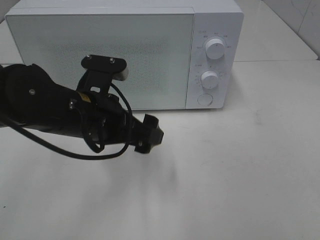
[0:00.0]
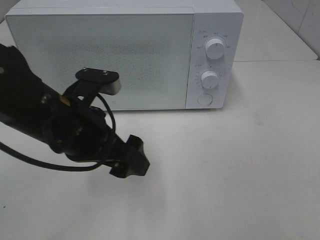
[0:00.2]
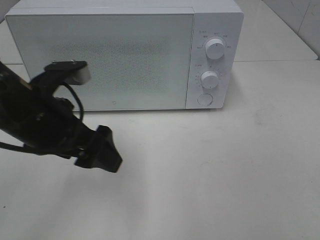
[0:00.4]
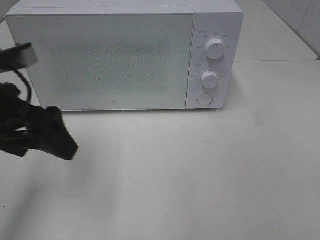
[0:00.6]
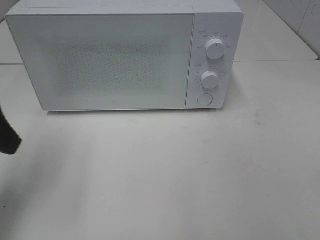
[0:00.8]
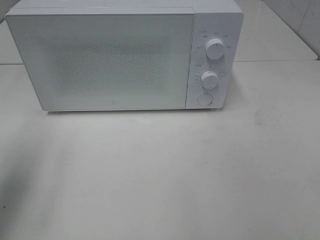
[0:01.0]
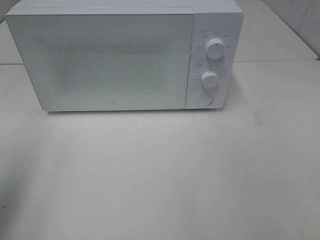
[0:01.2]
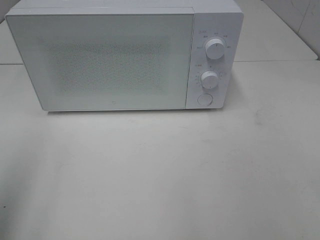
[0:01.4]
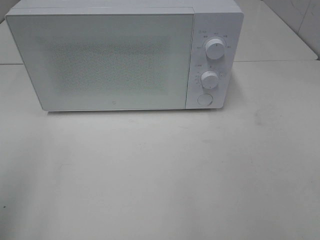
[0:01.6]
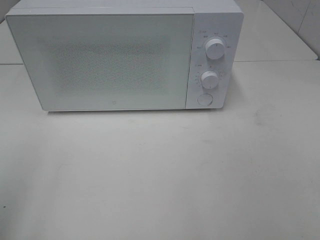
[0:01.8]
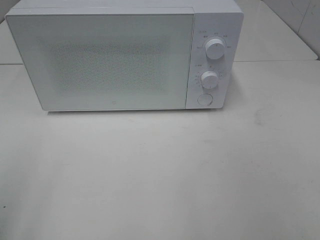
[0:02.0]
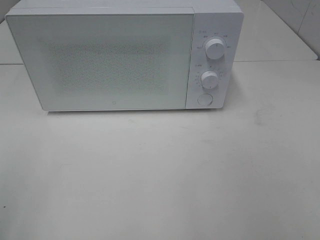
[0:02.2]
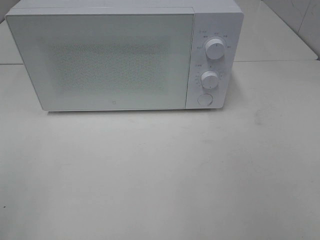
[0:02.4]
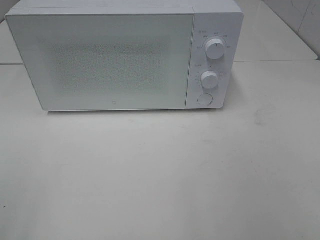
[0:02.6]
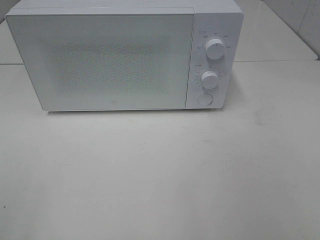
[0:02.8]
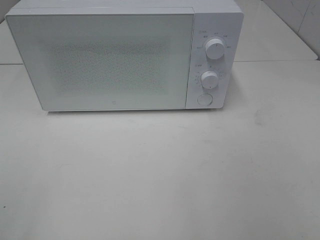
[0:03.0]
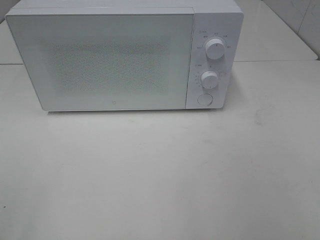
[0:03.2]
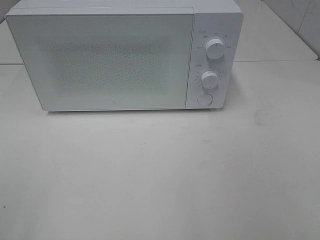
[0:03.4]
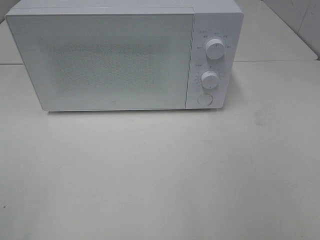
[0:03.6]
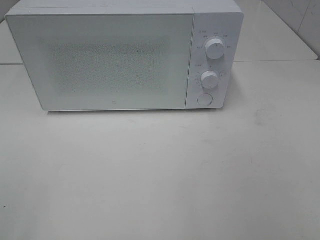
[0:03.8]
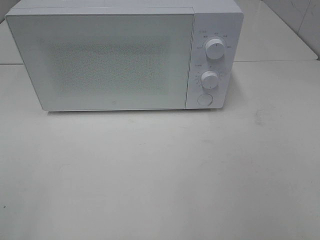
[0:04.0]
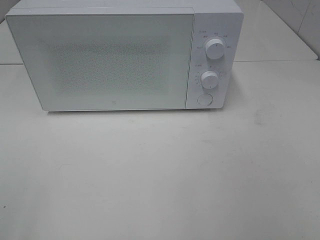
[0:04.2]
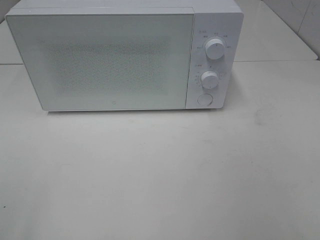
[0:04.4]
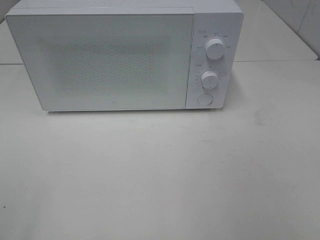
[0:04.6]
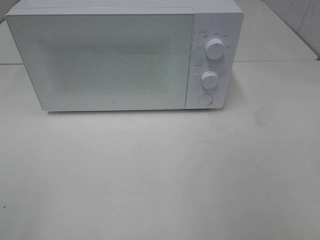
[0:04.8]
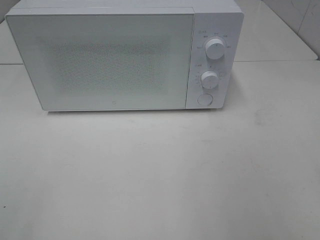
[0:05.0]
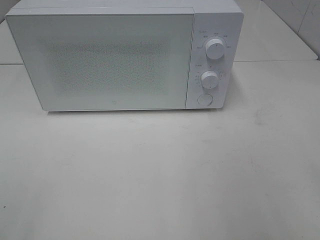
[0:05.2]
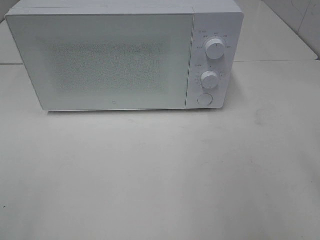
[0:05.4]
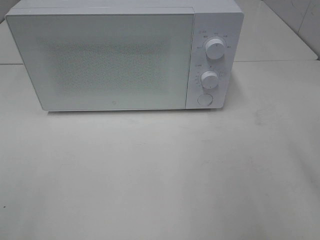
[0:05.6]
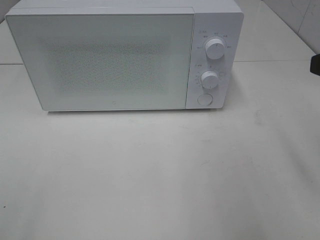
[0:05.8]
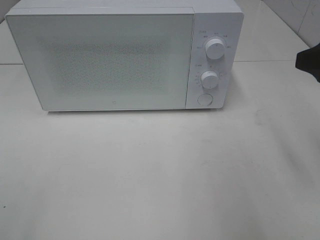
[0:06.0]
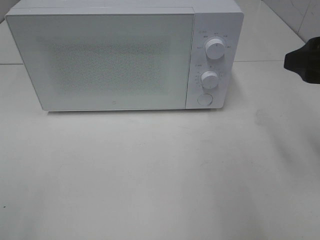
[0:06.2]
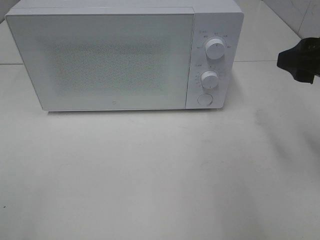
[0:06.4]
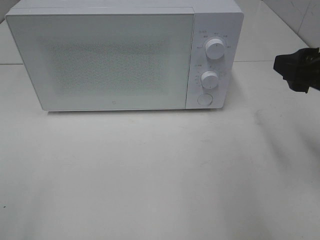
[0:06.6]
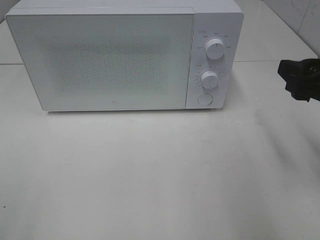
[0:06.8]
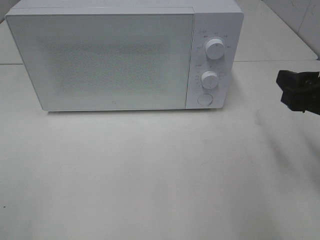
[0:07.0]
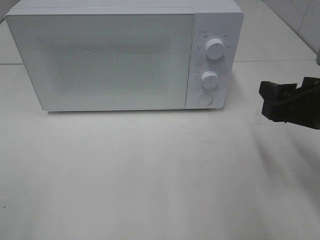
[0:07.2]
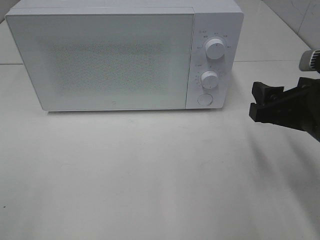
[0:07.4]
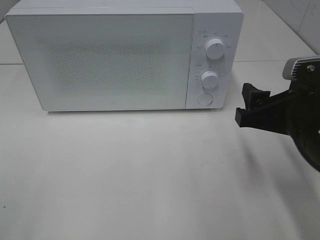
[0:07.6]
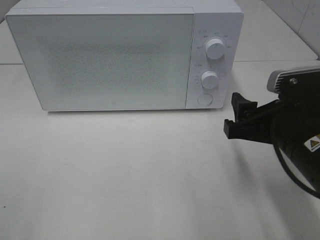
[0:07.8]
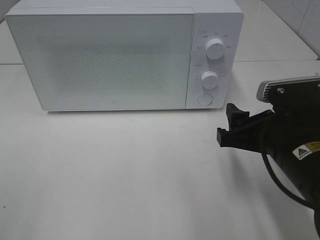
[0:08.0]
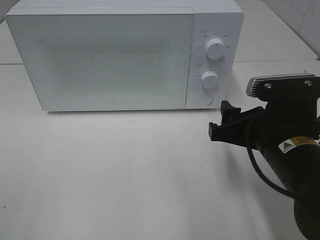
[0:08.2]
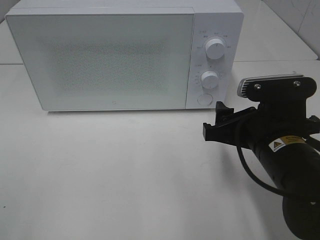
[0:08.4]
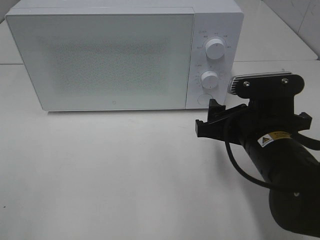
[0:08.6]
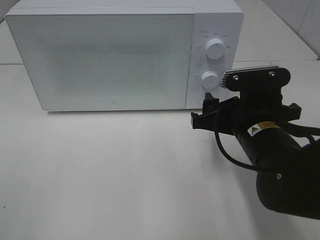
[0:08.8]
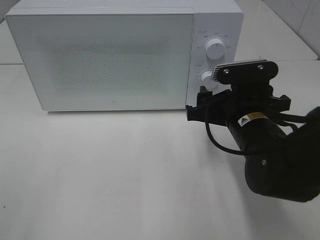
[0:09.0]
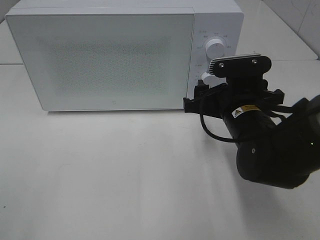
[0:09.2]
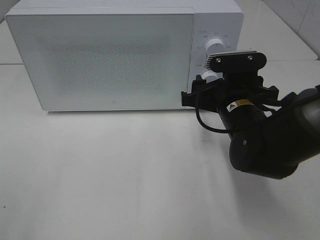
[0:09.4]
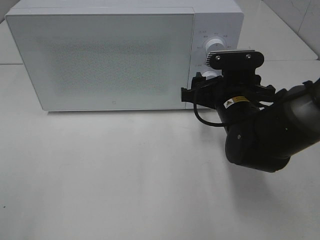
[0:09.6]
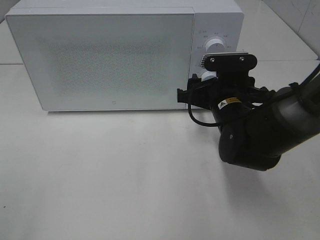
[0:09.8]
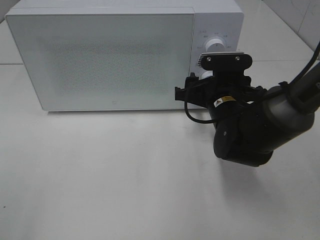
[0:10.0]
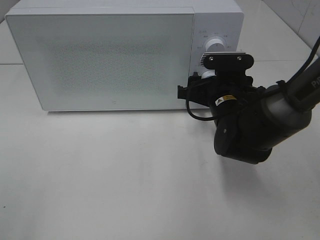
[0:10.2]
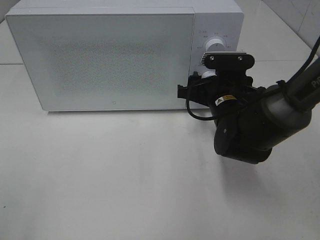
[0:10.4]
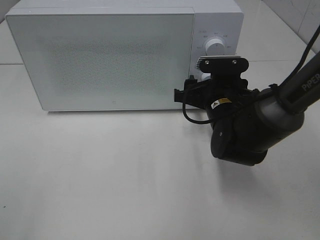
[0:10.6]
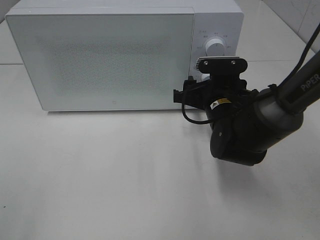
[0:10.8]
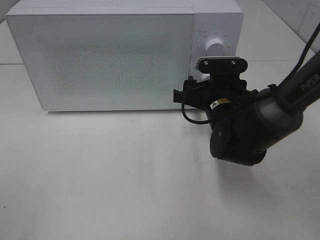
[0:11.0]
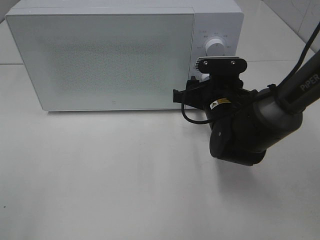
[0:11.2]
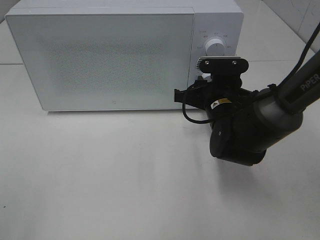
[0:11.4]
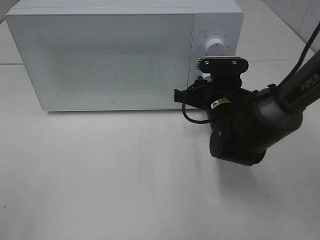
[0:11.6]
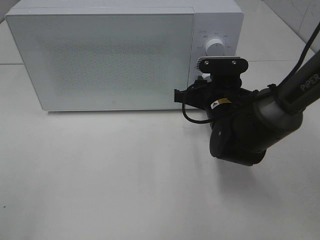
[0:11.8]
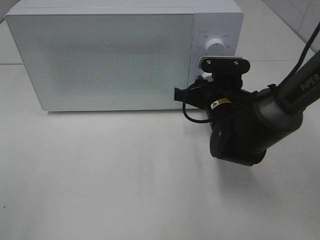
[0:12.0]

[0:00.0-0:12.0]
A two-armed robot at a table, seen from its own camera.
Task of the whole recording: Heat the burger.
0:00.0 to 0:01.6: The left gripper shifts about 30 cm to the left, upward and backward.
0:04.4 to 0:06.0: The right gripper goes about 20 cm forward.
0:06.0 to 0:07.6: The right gripper shifts some 10 cm downward and to the left.
0:07.6 to 0:09.0: The right gripper heads to the left and forward, covering approximately 10 cm.
0:09.0 to 0:10.4: The right gripper heads forward, covering about 5 cm.
0:10.4 to 0:12.0: The right gripper closes its fingers.

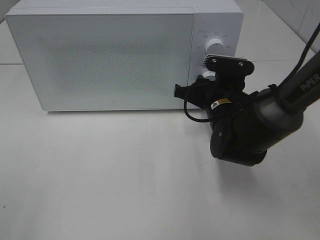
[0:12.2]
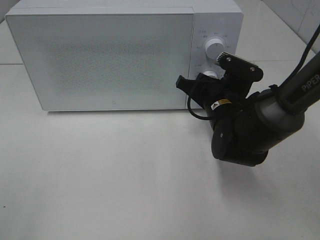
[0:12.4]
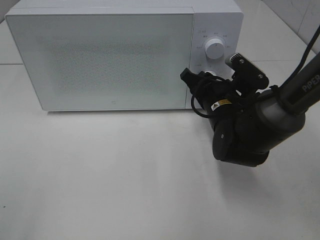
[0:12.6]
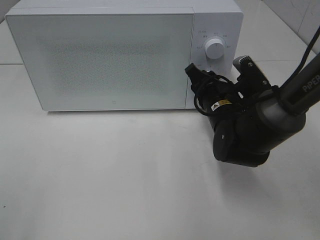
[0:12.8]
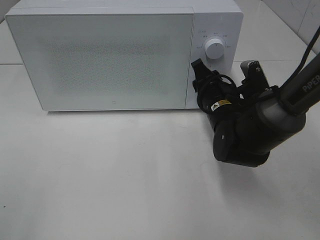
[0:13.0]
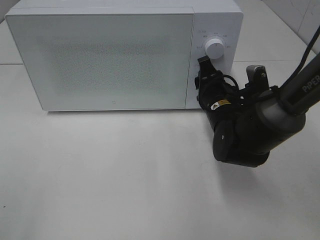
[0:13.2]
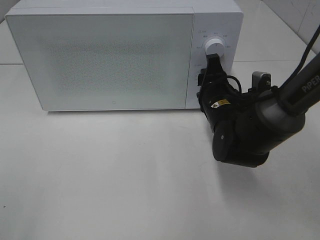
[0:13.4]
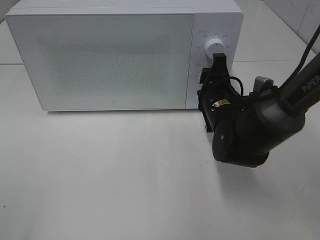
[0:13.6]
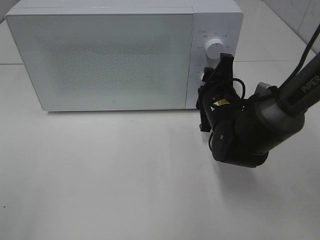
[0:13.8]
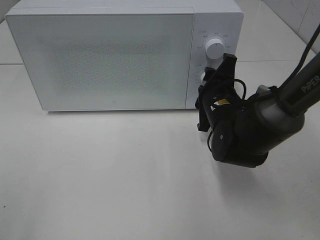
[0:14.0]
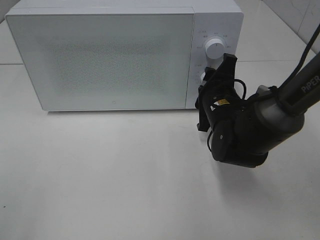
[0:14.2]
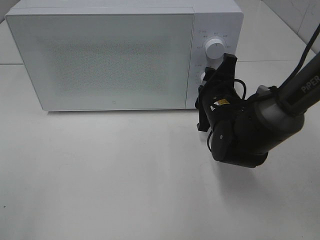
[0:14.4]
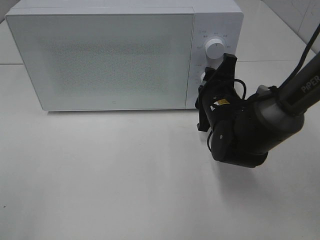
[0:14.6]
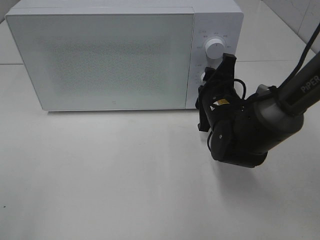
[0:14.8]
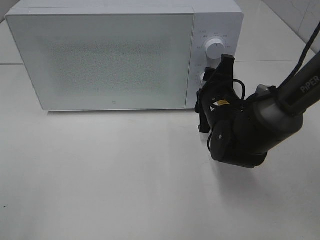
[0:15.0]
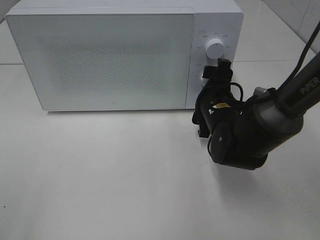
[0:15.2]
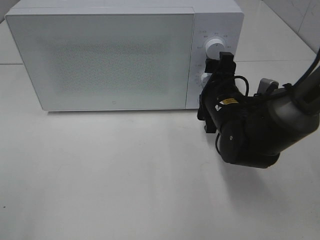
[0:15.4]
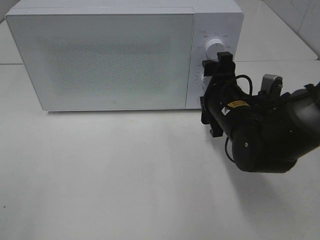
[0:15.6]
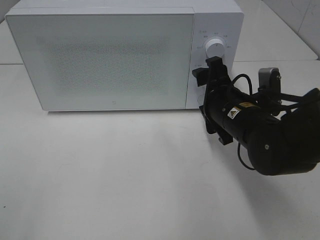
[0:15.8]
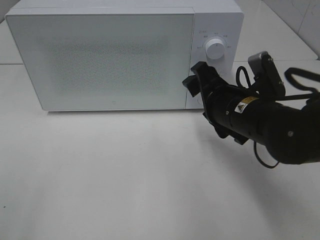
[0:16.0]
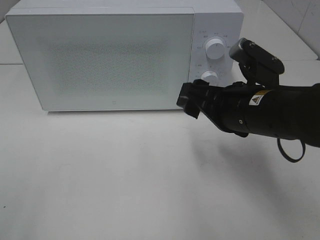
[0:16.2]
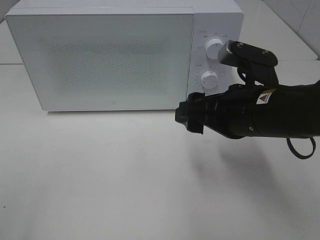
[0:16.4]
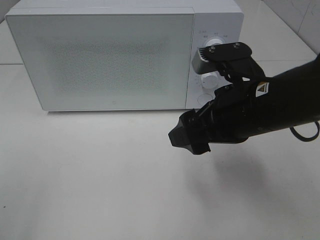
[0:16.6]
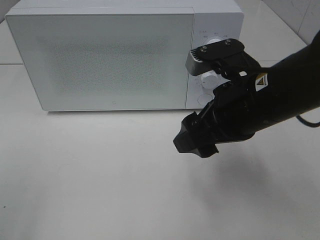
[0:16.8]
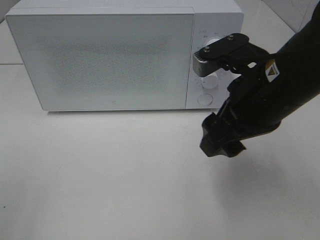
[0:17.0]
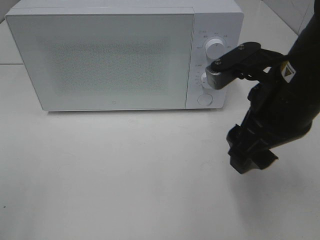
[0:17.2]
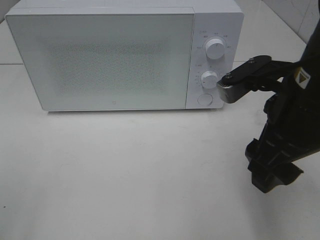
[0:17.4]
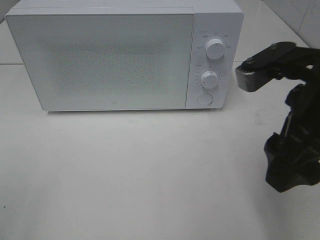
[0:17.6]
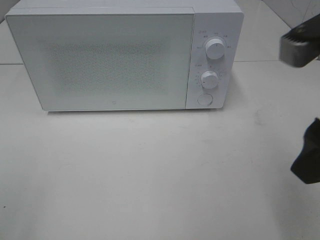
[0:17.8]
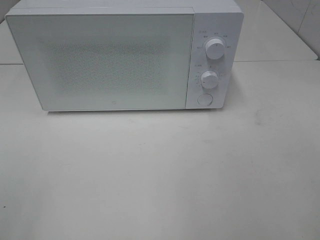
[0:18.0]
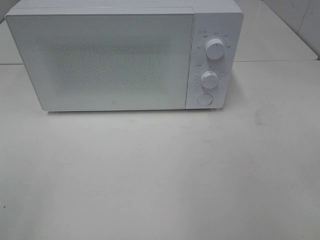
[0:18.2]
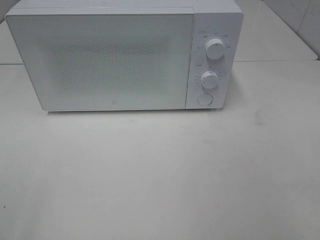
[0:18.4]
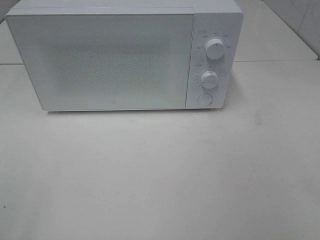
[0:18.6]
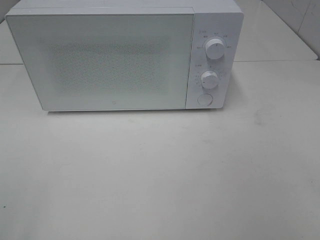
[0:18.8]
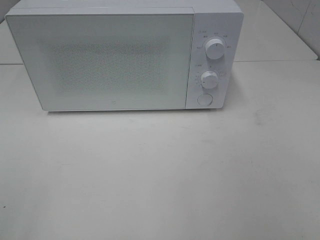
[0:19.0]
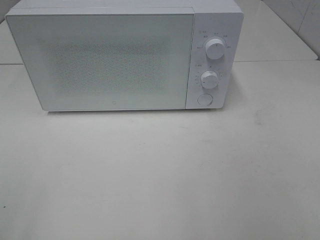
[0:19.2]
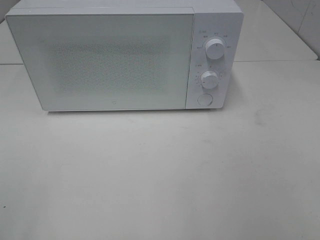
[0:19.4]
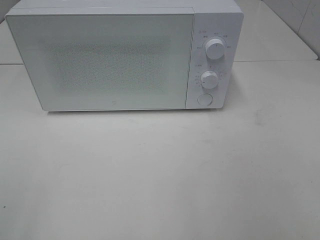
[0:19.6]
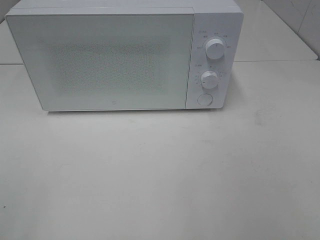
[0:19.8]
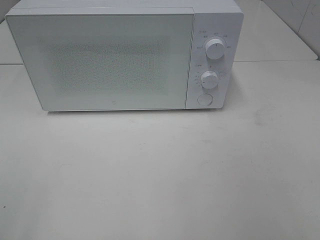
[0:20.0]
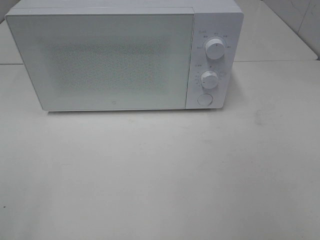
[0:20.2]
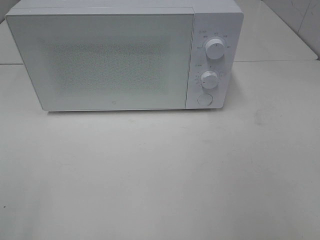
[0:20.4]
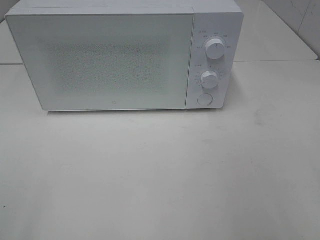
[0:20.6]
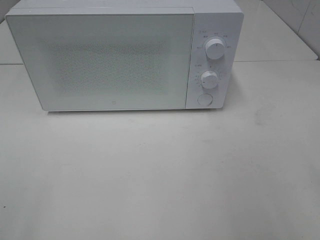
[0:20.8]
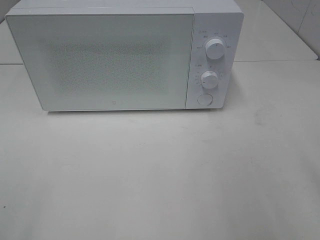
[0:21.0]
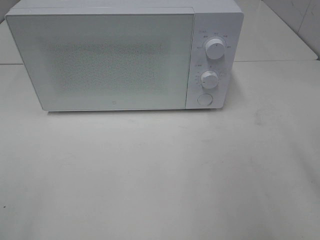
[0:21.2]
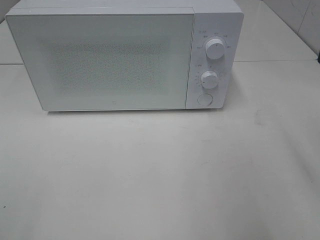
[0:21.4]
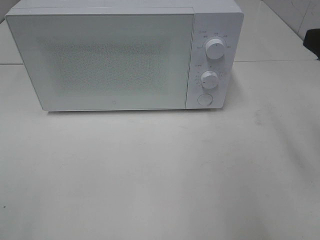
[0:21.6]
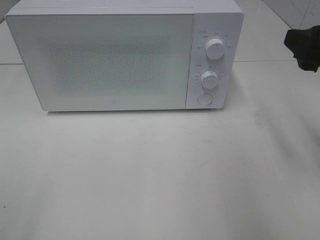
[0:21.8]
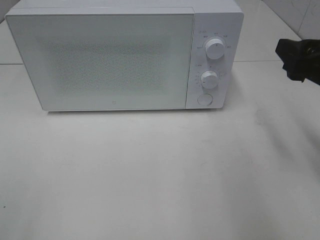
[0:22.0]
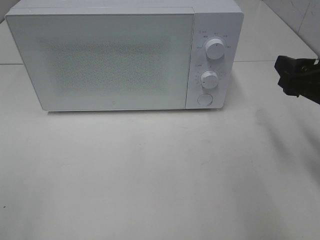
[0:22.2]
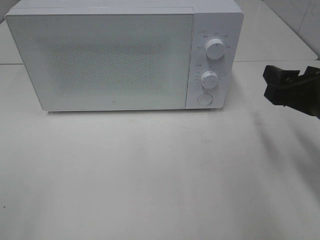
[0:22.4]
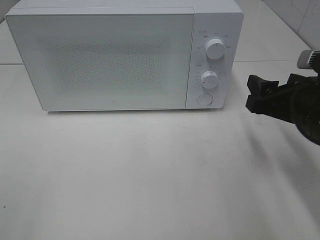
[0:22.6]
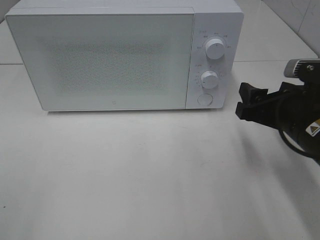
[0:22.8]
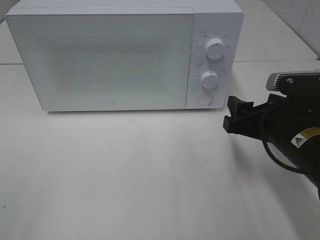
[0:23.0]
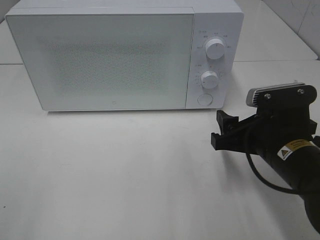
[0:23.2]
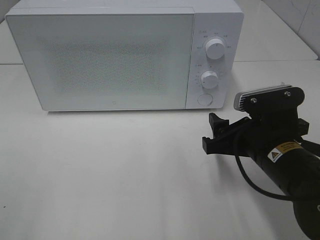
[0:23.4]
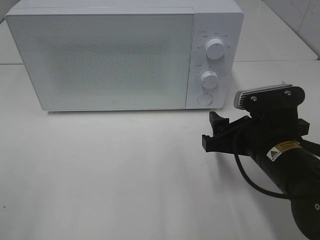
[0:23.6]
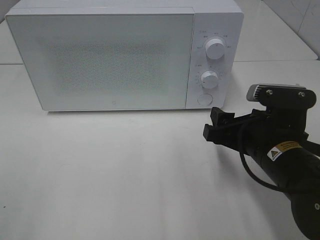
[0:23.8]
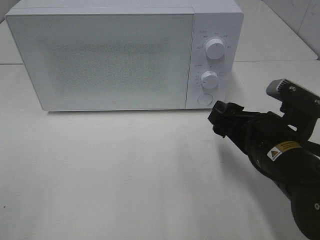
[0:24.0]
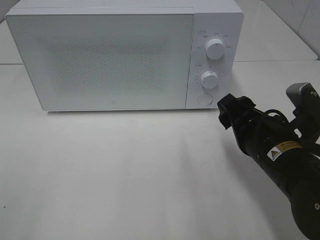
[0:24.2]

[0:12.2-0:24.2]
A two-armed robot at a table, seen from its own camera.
Task of the whole recording: Heat the burger.
Step, 0:12.2 to 0:15.4: Right hand: twist timer button.
0:13.8 to 0:15.2: The right gripper opens its fingers.
0:15.2 to 0:16.6: The right gripper shifts roughly 15 cm upward and backward.
0:16.6 to 0:18.2: The right gripper shifts roughly 25 cm backward, to the right and upward.
0:21.2 to 0:22.6: The right gripper moves downward and forward, about 15 cm.
0:22.6 to 0:24.2: The right gripper shifts about 5 cm to the left.
